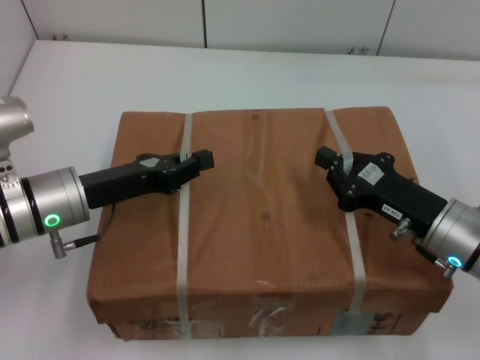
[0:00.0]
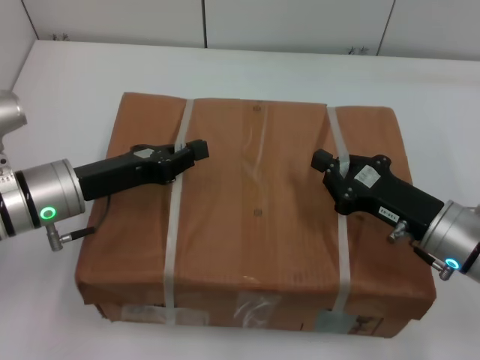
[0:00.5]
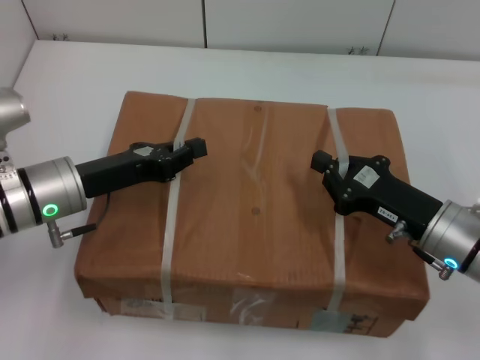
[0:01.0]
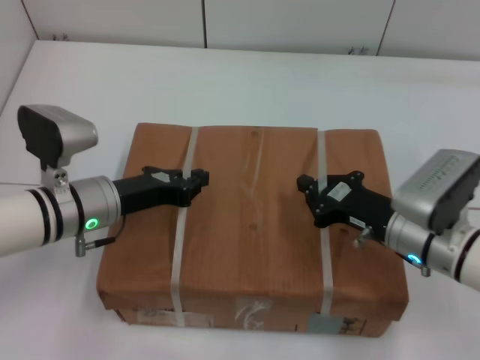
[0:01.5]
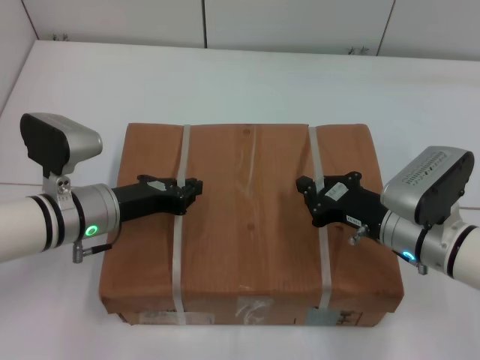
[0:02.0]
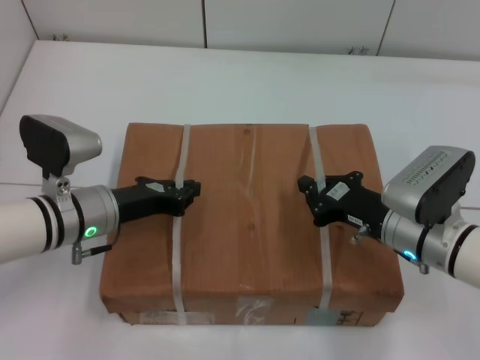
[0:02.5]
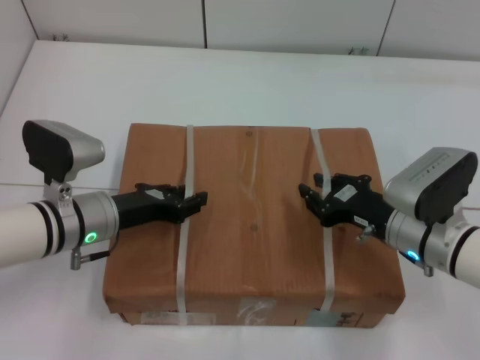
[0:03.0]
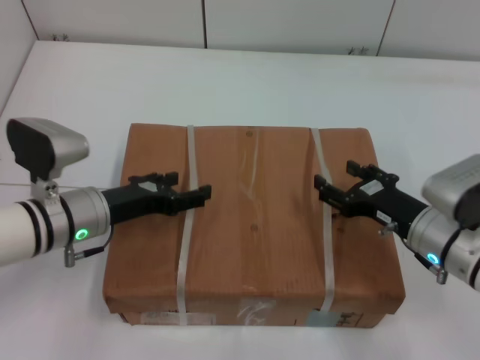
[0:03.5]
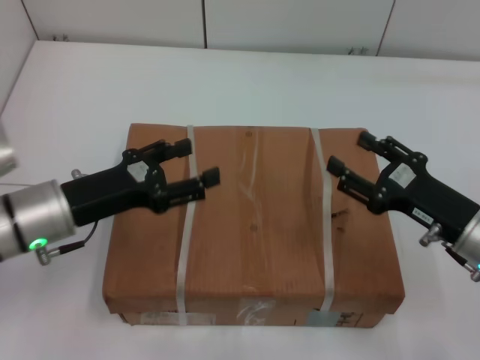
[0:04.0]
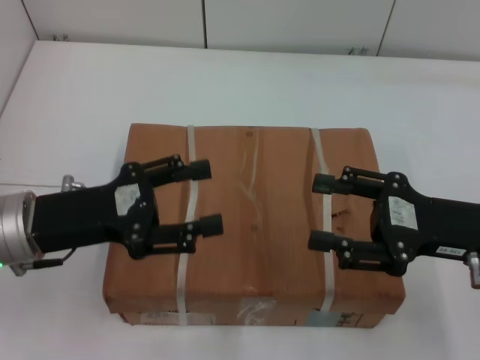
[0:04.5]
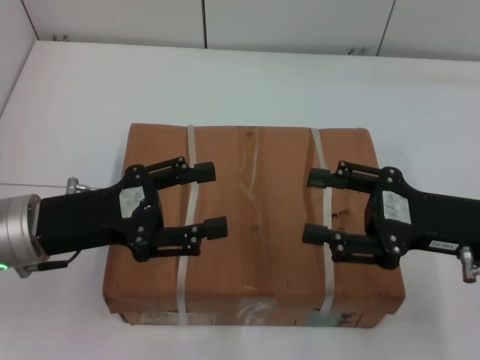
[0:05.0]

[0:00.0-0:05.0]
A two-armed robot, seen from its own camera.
Task of the whole recording: place the box on the table with both arms.
Step, 0:00.0 to 0:01.5: Place the box on the table with left gripper.
Step, 0:00.0 to 0:01.5: Place the box on the table with right gripper.
Step, 0:02.0 to 0:03.0: Loosen the box on the table with left gripper.
Step, 0:02.0 to 0:03.0: Loosen the box on the table with right gripper.
0:00.0 to 0:02.5: The left gripper changes place by about 5 cm.
0:02.5 to 0:05.0: The left gripper travels upward and backward by approximately 10 cm, and opens its fingers, while the right gripper is displaced upward and to the right by about 10 cm, and opens its fingers.

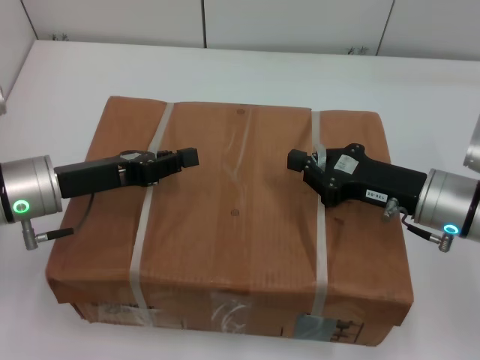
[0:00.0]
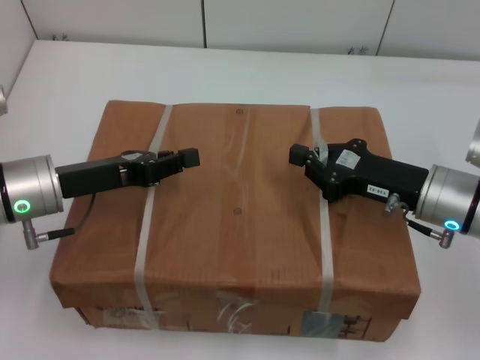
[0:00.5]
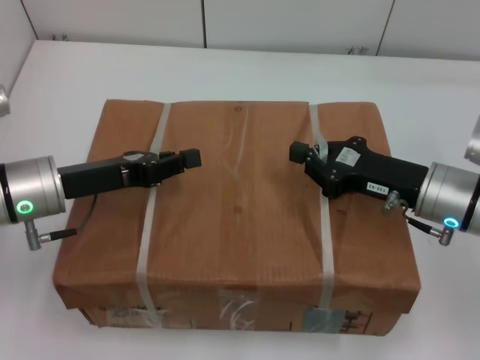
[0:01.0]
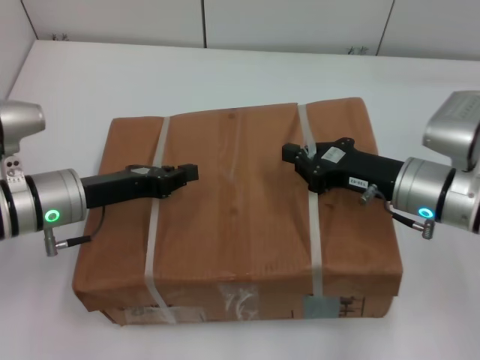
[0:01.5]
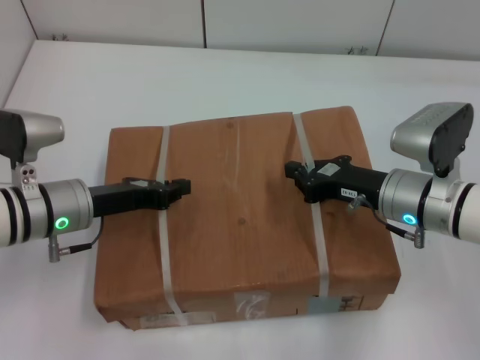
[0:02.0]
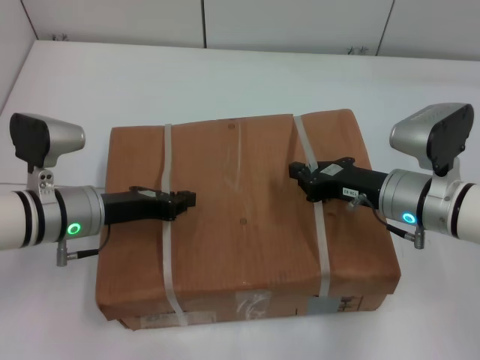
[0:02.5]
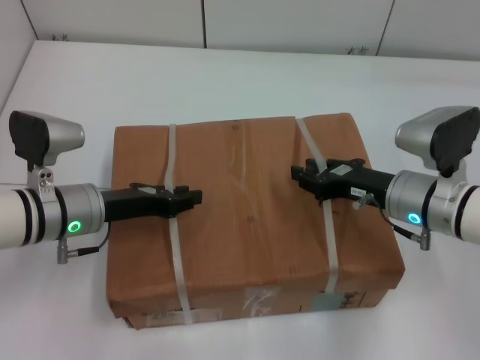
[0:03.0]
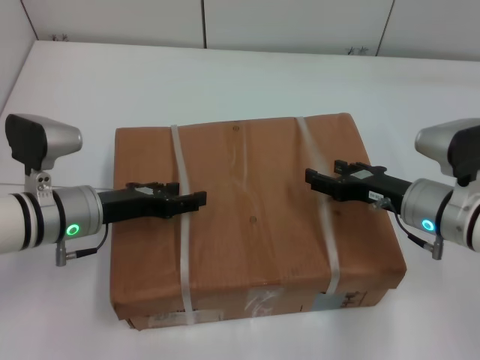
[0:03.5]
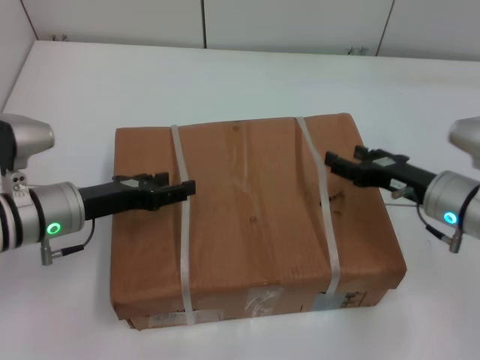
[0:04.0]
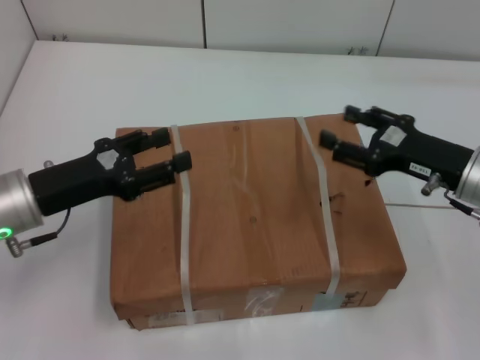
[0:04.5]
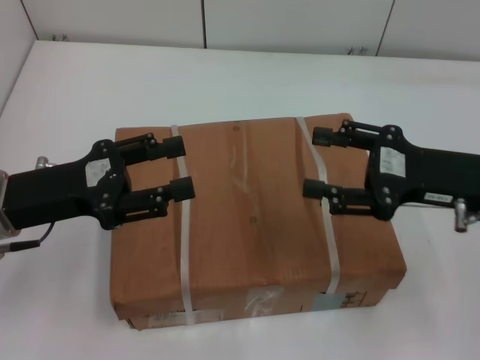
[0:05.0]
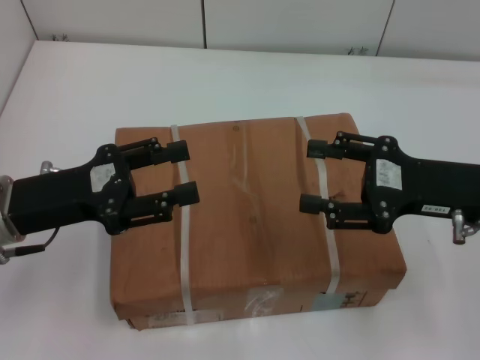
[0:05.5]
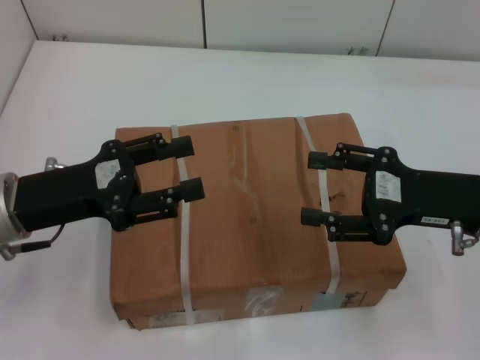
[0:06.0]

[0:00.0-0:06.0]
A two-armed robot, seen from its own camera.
Task of the whole recording: place the box on the table with both arms.
Step, 0:00.0 to 0:02.5: Place the box on the table with left gripper.
Step, 0:00.0 to 0:02.5: Place the box on the table with right gripper.
Step, 0:03.0 to 0:03.5: Loosen the box on the table with left gripper.
Step, 0:03.0 to 0:03.5: Loosen the box on the table with right gripper.
0:02.0 to 0:04.0: The right gripper goes about 5 cm to the right, and opens its fingers. The left gripper opens up.
0:04.0 to 0:06.0: Both grippers move upward, about 10 cm.
